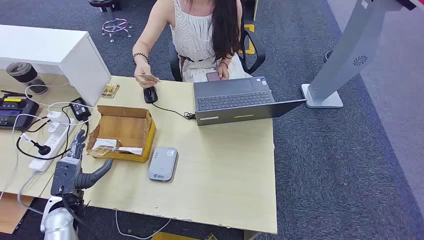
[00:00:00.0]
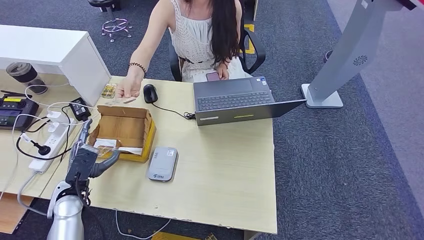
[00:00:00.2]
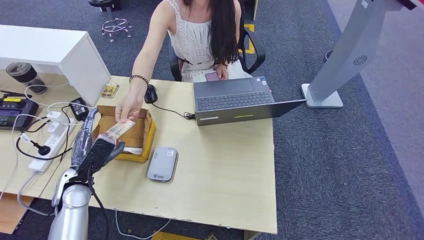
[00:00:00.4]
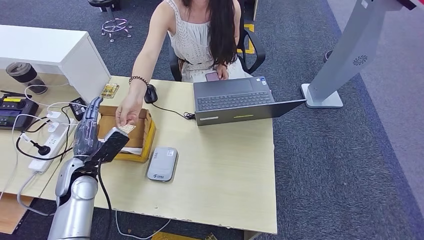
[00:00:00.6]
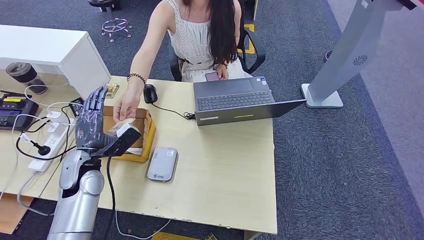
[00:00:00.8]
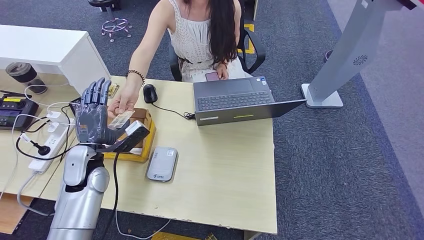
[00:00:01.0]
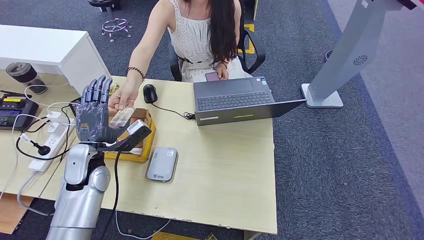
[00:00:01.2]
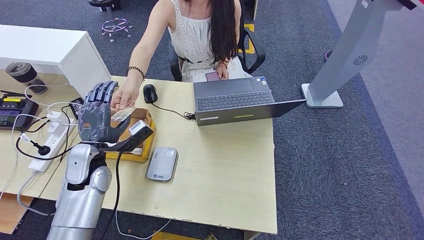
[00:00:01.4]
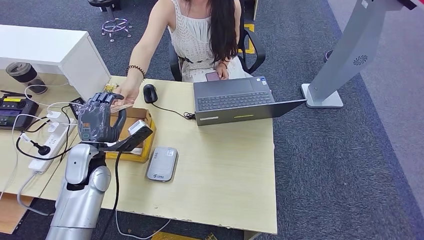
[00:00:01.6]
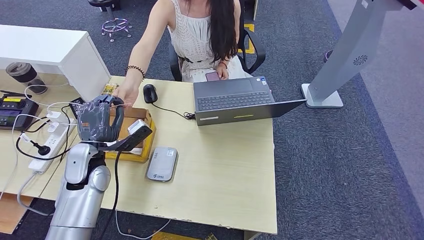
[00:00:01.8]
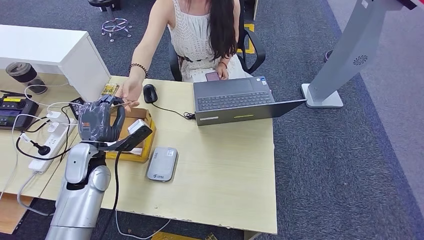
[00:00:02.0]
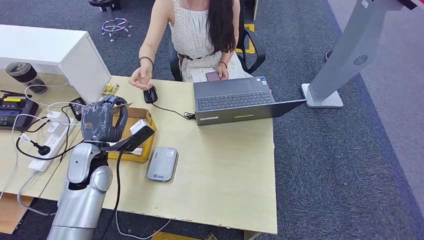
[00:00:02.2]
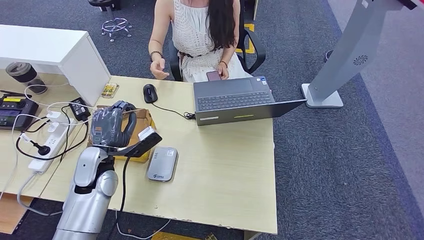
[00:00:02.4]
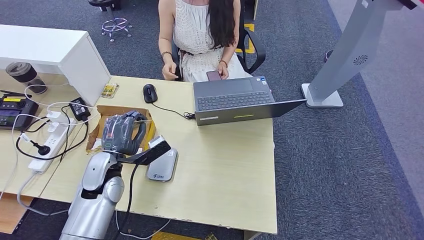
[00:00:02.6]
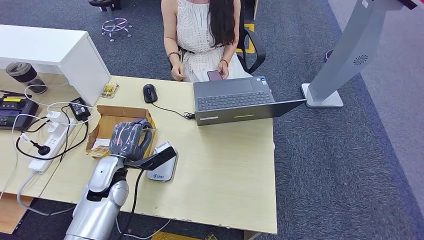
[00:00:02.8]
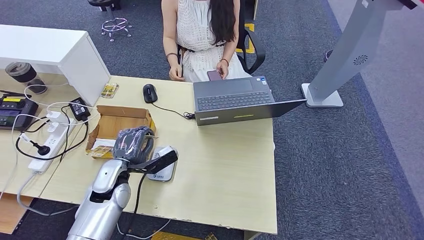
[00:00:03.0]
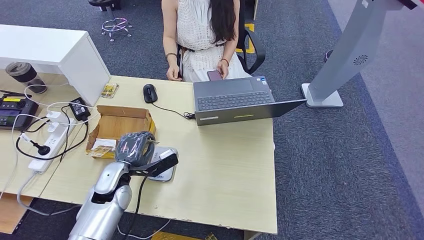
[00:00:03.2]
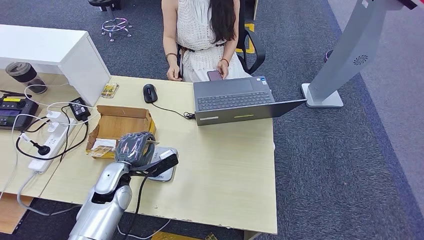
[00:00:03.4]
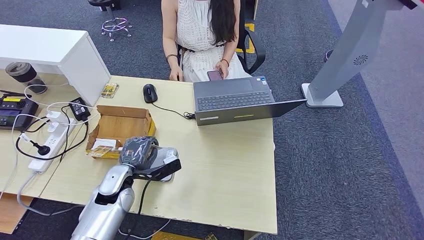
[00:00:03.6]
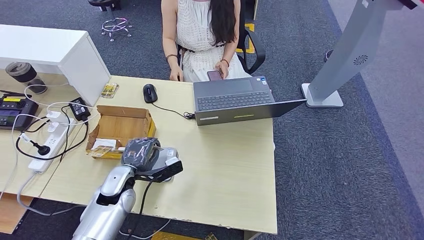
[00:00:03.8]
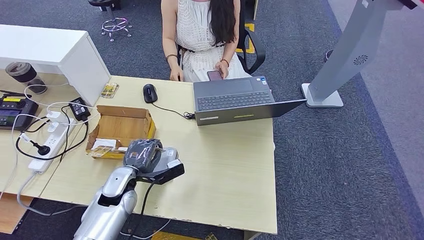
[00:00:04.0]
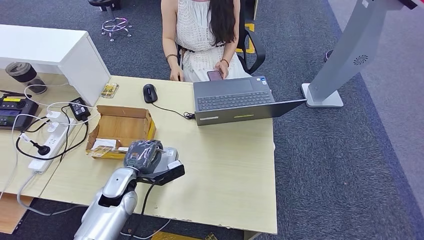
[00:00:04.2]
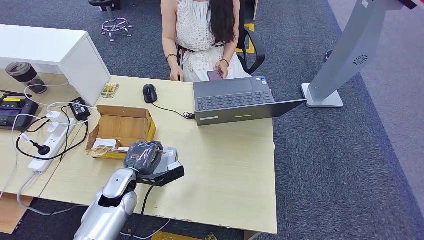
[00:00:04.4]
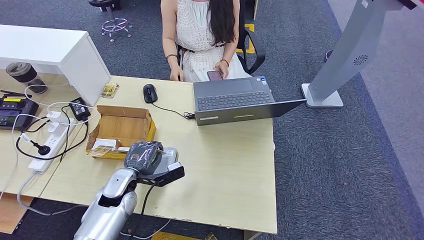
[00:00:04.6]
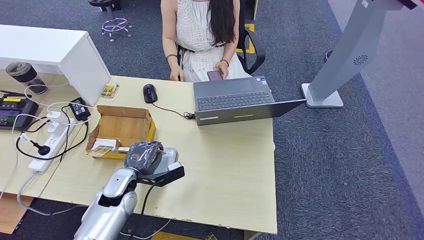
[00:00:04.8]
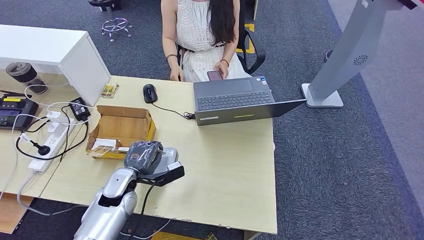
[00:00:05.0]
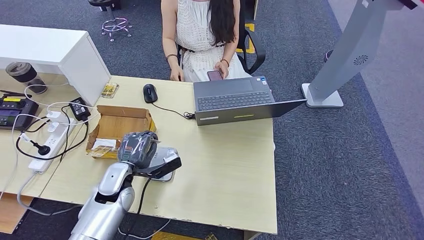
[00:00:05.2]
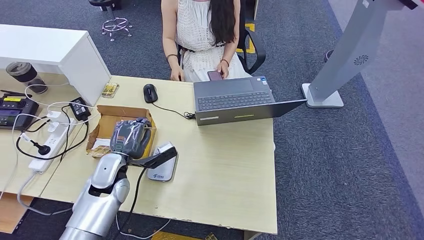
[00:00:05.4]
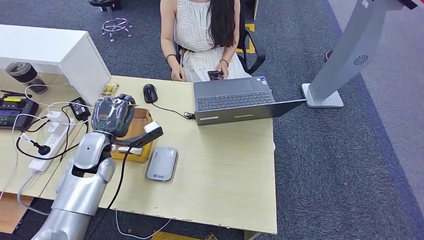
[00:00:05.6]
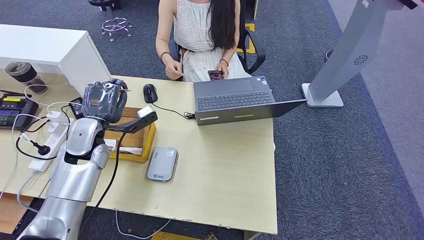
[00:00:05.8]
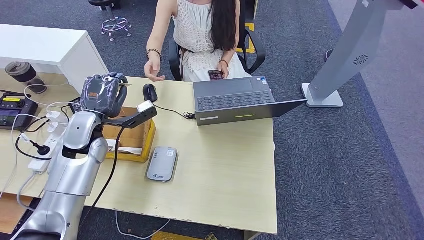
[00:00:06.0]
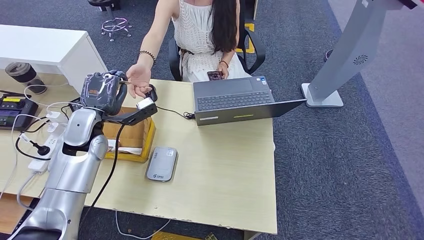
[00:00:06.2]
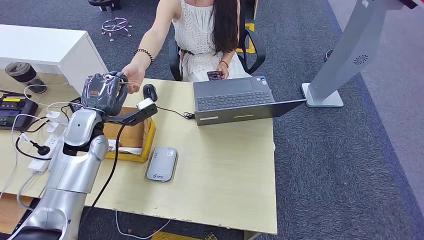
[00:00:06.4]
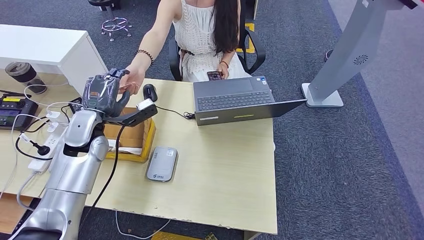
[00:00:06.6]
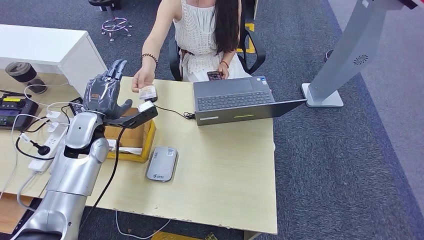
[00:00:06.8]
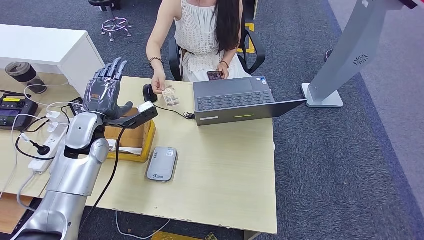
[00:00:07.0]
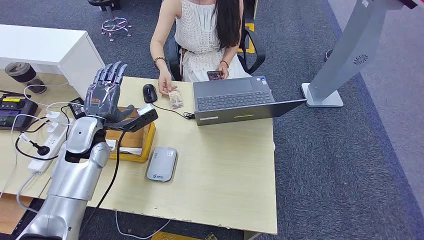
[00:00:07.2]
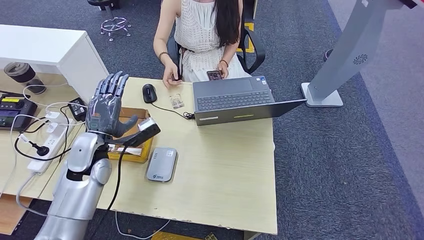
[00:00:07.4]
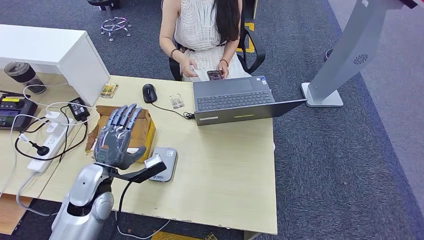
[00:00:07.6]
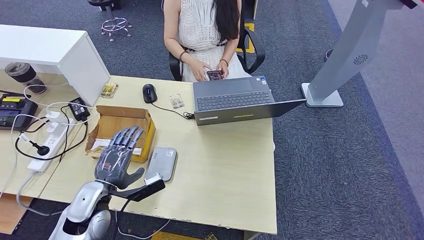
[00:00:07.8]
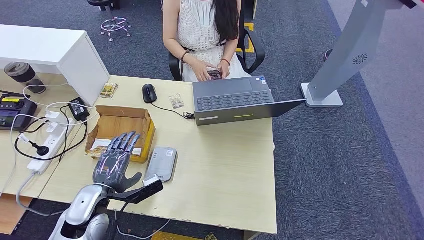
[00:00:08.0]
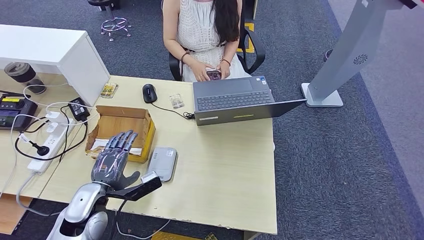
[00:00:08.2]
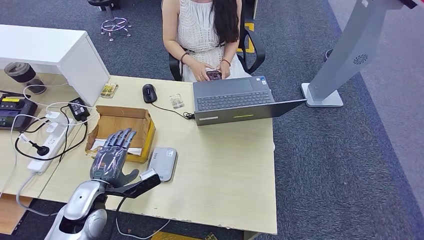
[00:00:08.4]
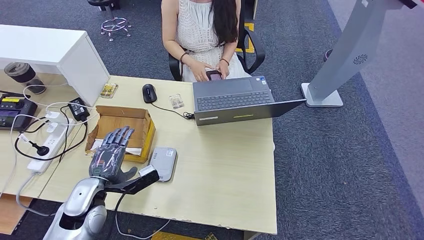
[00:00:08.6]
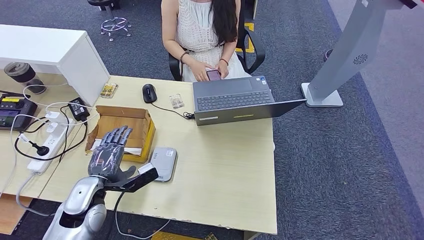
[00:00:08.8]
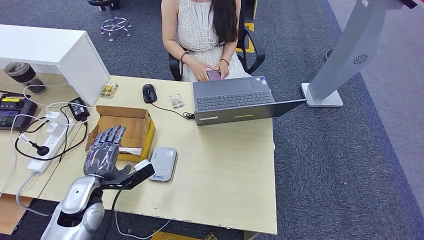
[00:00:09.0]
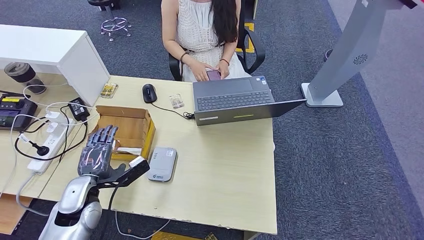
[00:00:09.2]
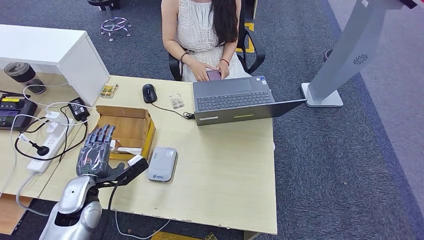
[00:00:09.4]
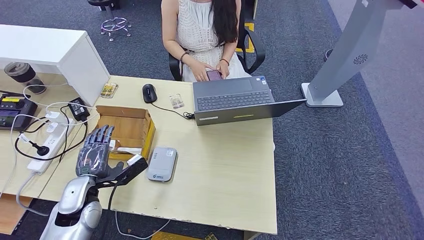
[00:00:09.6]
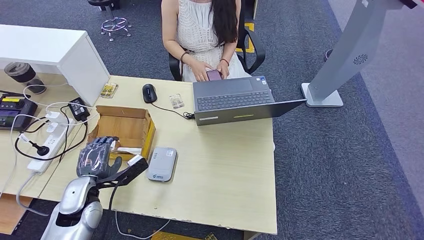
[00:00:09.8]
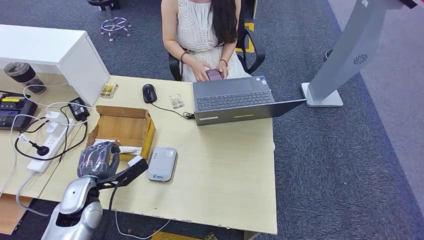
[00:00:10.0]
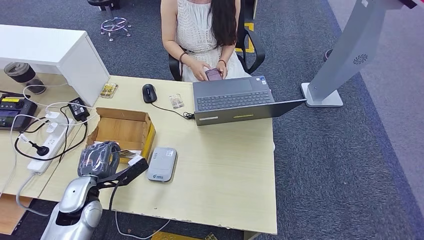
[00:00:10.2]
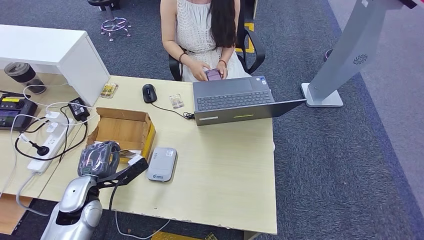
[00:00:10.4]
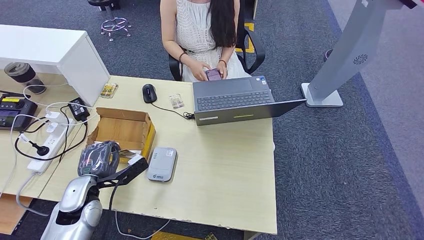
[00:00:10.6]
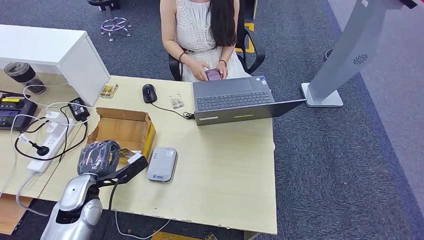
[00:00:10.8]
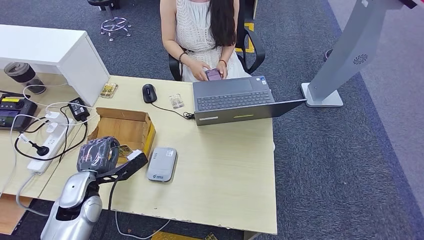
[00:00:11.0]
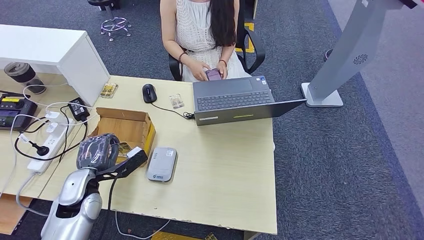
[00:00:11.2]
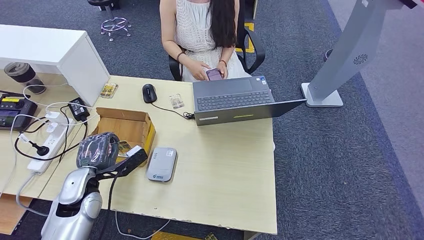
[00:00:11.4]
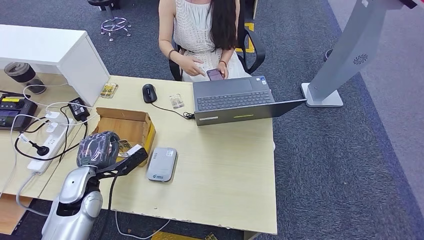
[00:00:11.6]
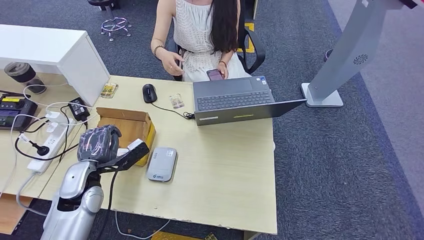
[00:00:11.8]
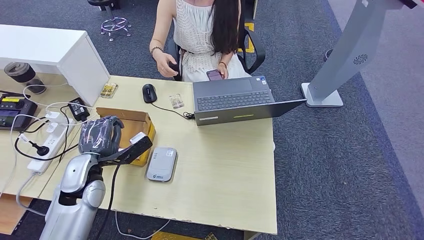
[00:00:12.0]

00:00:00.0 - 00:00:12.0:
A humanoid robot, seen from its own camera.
Step, 00:00:00.0 - 00:00:02.2: Take the ID card from the person's hand.
Step, 00:00:02.6 - 00:00:04.6: Place the ID card on the card reader.
Step, 00:00:04.8 - 00:00:07.2: Hand the ID card to the person.
00:00:01.6 - 00:00:03.0: The left hand shifts about 5 cm downward.
00:00:03.0 - 00:00:04.4: The hands make only small movements.
00:00:04.4 - 00:00:06.0: The left hand goes some 20 cm upward, forward and to the left.
00:00:06.0 - 00:00:07.6: The left hand moves backward and downward, roughly 15 cm.
00:00:07.6 - 00:00:09.0: The hands make only small movements.
00:00:09.0 - 00:00:10.4: The hands move only a little.
00:00:10.4 - 00:00:12.0: The left hand is displaced upward by roughly 5 cm.

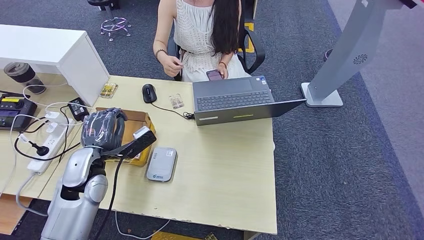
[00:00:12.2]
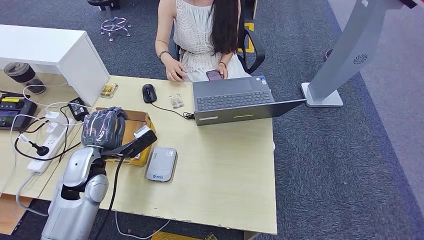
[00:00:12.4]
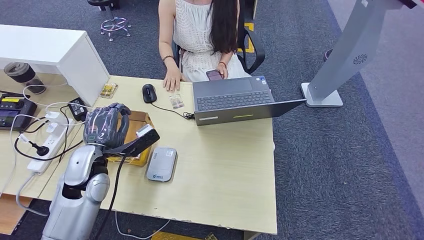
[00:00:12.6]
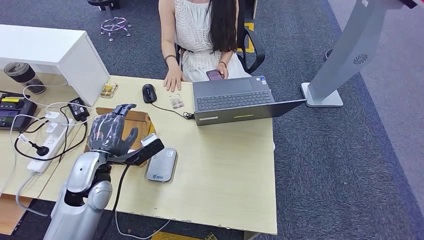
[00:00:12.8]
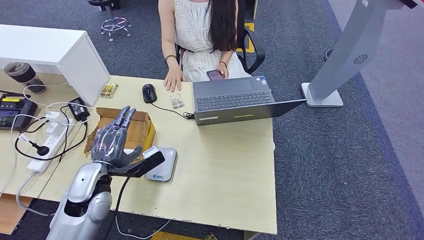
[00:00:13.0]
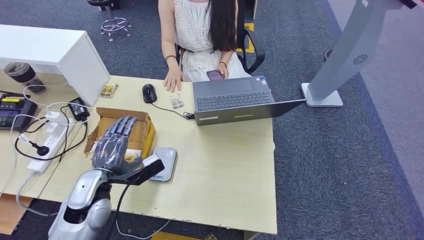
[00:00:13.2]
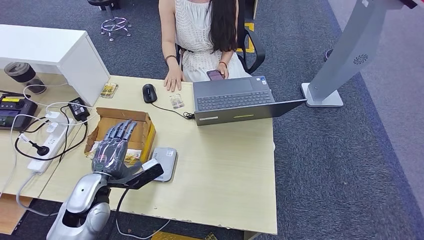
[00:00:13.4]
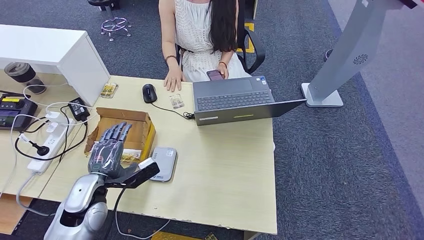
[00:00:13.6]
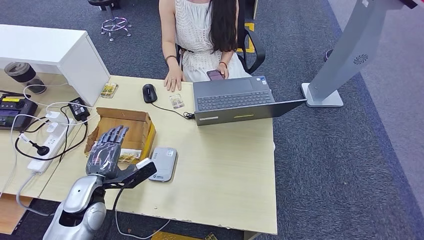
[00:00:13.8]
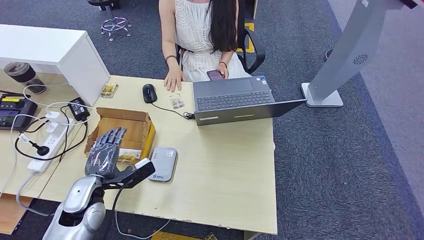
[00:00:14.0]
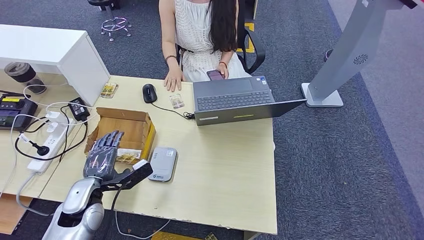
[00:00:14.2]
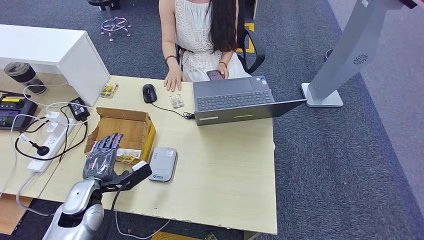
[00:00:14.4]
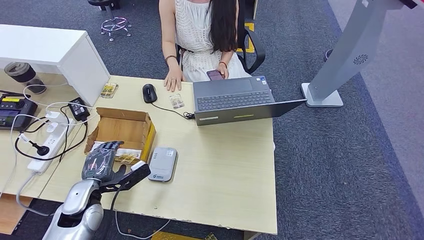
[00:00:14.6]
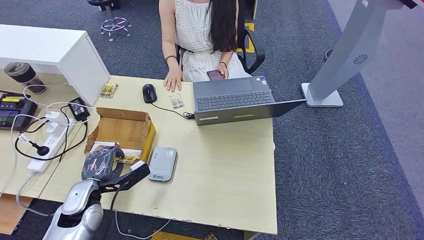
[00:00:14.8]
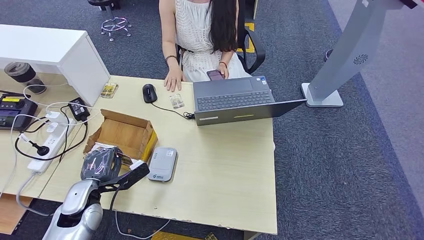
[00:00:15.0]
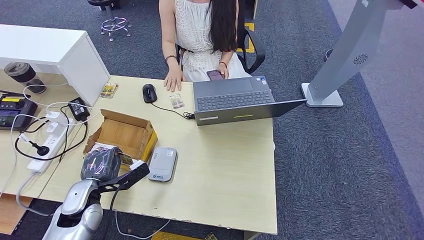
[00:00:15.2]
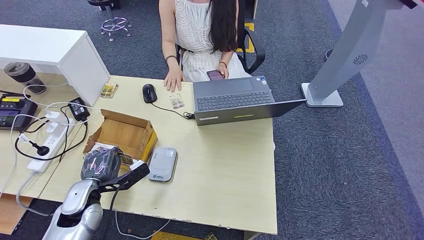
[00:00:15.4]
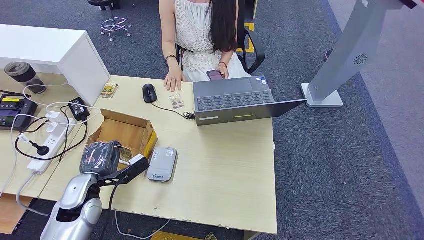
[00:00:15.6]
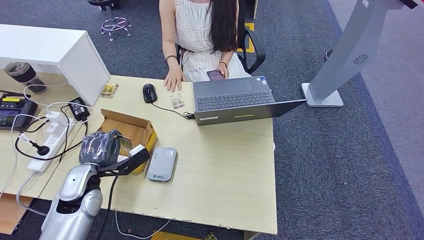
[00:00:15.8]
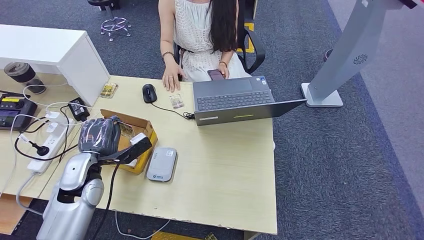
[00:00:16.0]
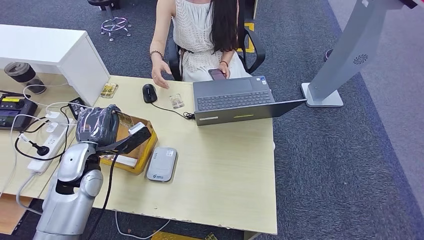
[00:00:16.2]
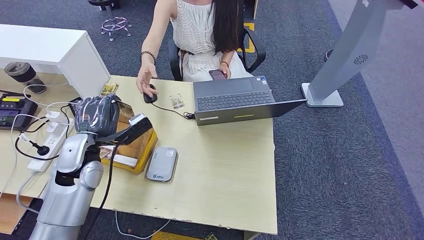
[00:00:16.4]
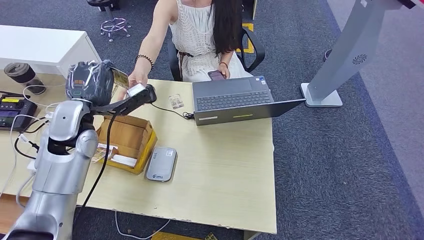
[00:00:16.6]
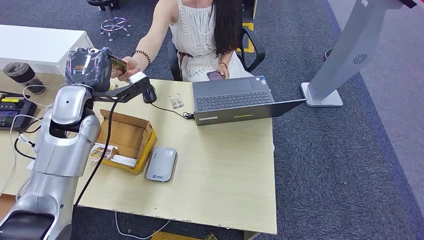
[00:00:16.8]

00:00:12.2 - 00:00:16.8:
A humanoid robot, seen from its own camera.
00:00:12.2 - 00:00:13.8: The left hand is displaced downward by some 5 cm.
00:00:13.8 - 00:00:15.2: The hands make only small movements.
00:00:15.2 - 00:00:16.8: The left hand is displaced upward and forward by approximately 25 cm.
